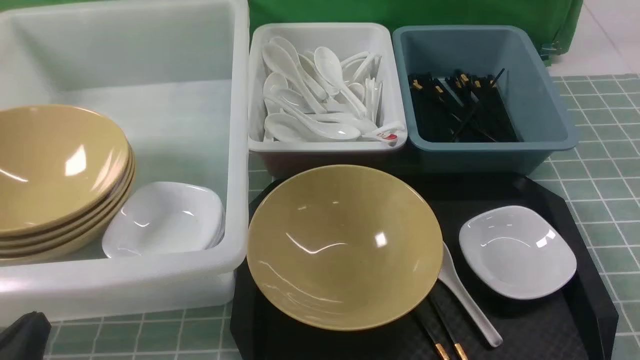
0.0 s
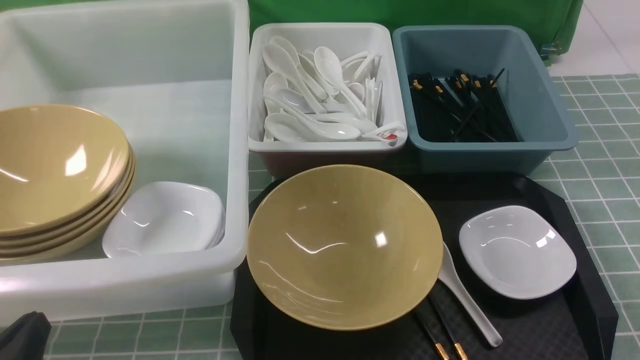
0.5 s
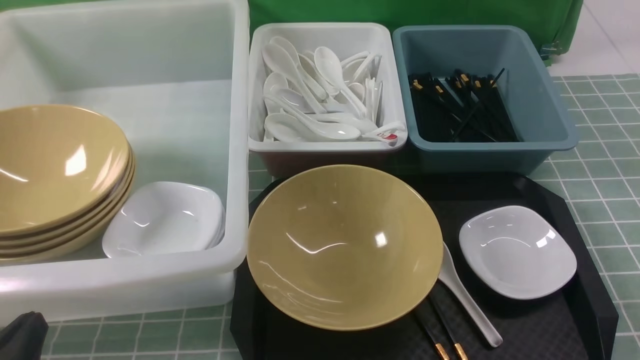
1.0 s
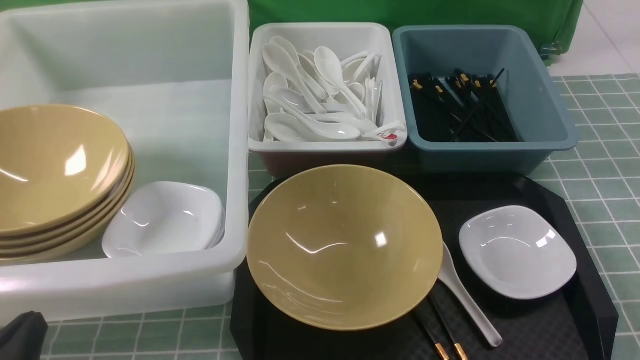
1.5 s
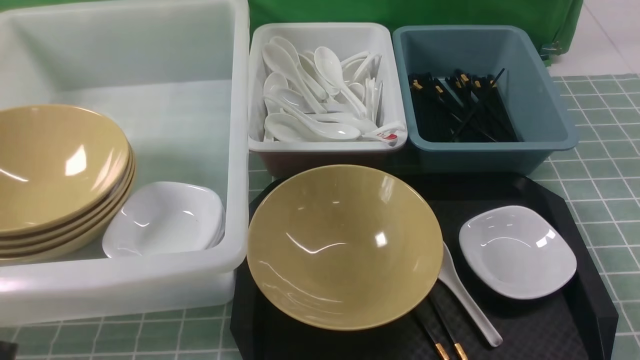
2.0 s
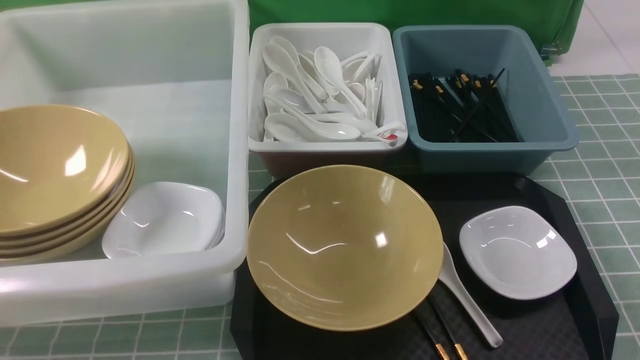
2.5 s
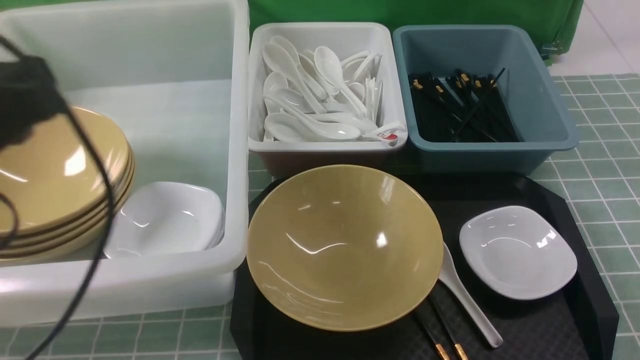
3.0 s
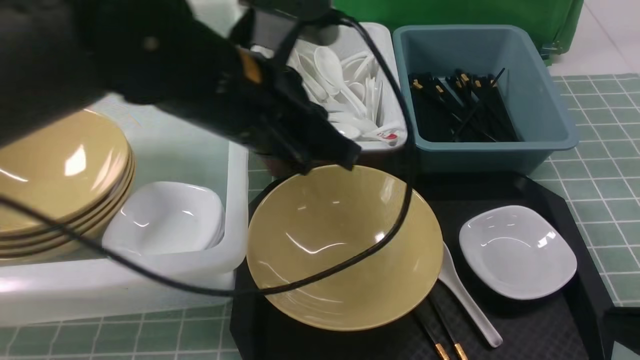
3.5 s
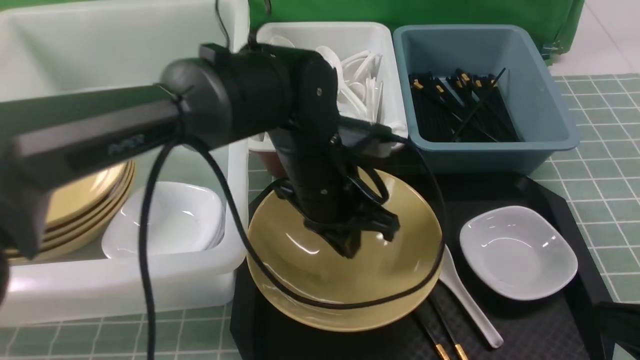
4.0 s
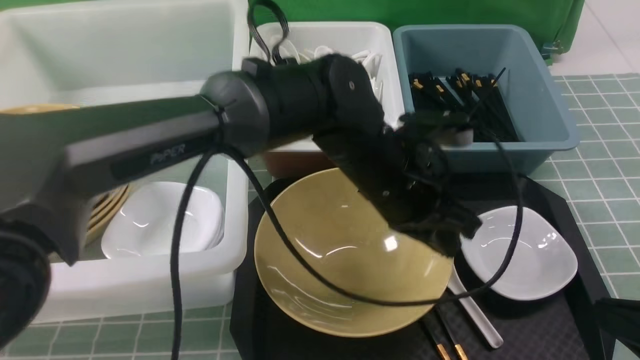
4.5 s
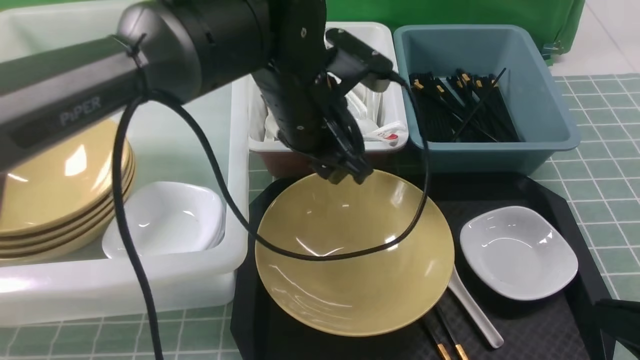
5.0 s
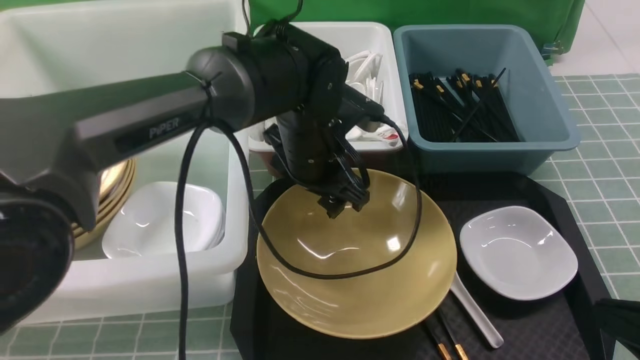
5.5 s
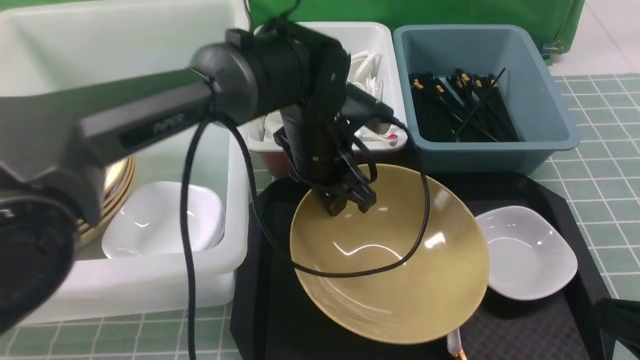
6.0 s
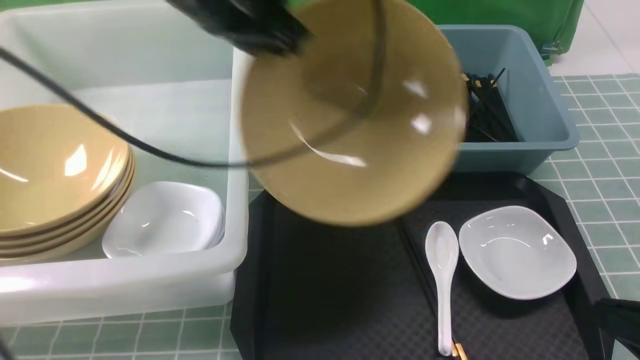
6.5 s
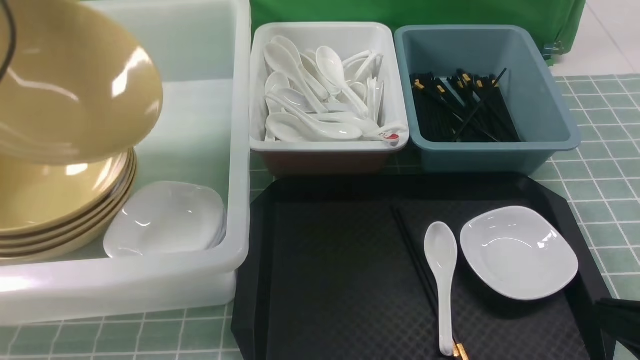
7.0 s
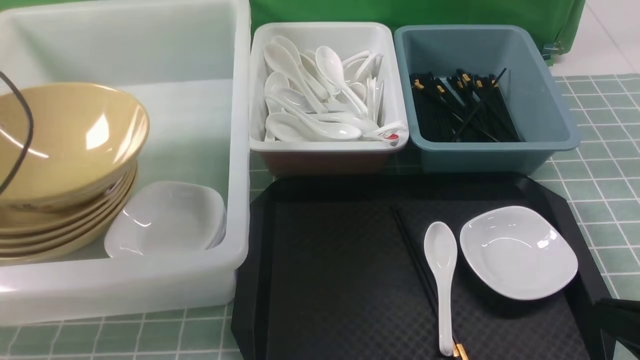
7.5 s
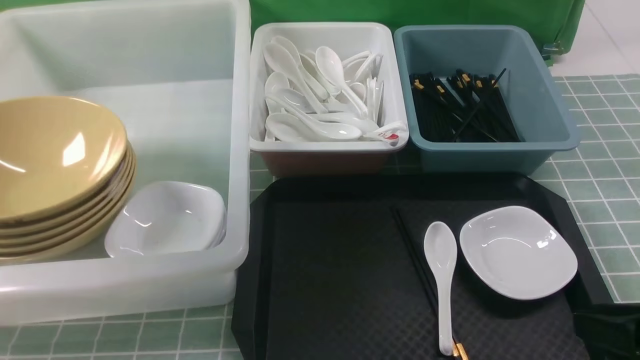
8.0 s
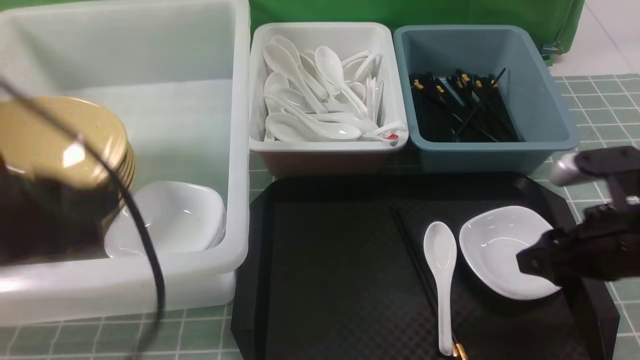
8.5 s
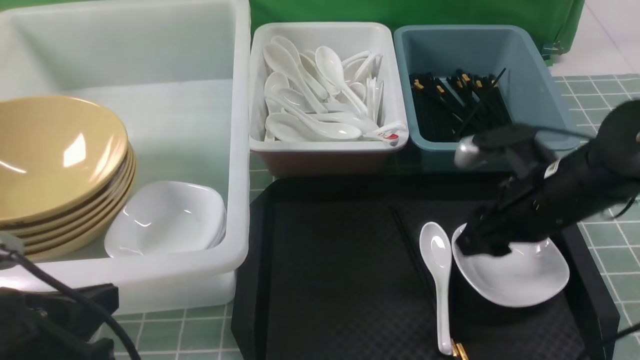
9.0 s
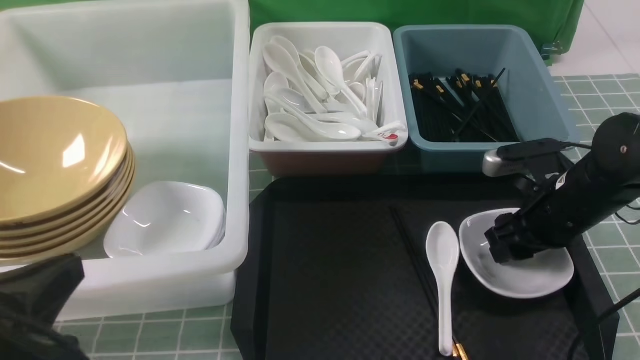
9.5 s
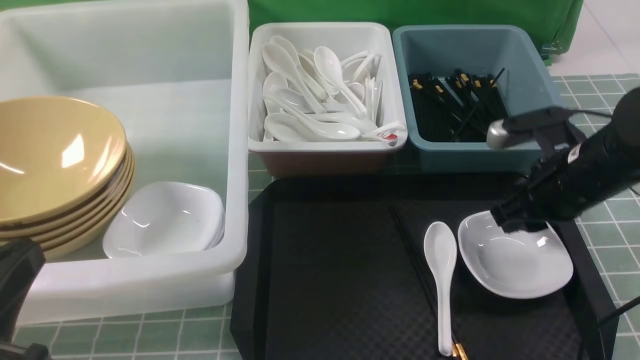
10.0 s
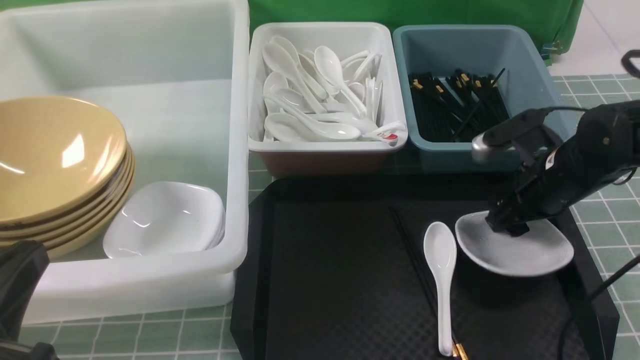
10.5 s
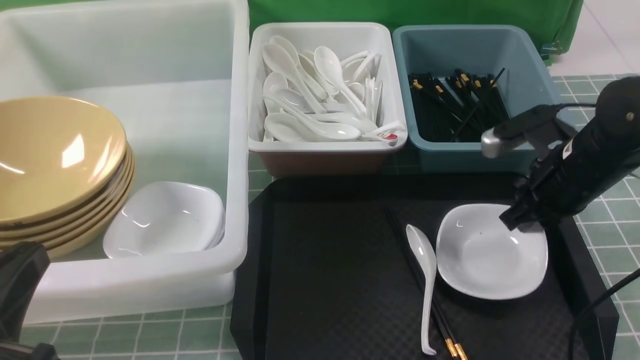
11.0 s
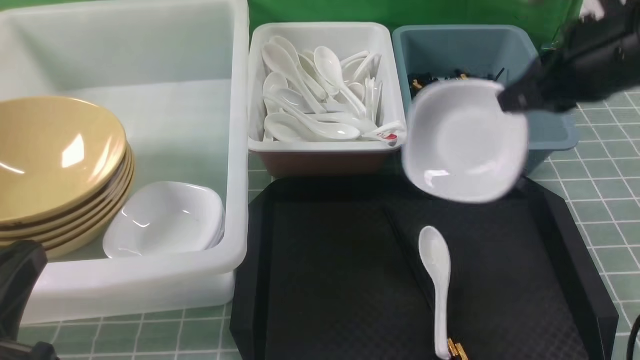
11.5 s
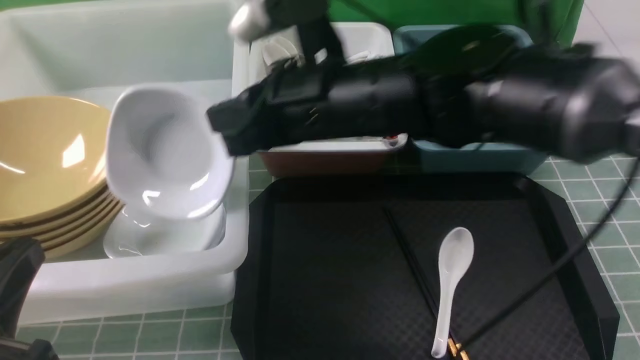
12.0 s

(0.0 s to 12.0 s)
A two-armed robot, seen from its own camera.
Task of the whole recording: on blue table put chopsticks spoon bowls plates into blue grey white boxes.
Step, 0.0 s - 6.0 s: use the left arm to grab the yellow noodle bowl on the left.
Step, 6.5 s - 7.5 s: use the left arm to put the noodle bowl into the large storage box on the left.
Step, 8.0 s - 11.0 s: use the right arm to grab the plate.
0.0 s - 2.0 s: The left gripper is displaced upward by approximately 5 cm.
2.0 s - 4.0 s: The left gripper goes some 35 cm to the right and forward. The right gripper goes upward and returns, some 10 cm each way, and closes its fingers.
4.0 s - 6.0 s: The left gripper shifts by about 5 cm, and opens, then closes once more.
6.0 s - 8.0 s: The left gripper moves to the left, upward and backward, approximately 35 cm, and opens. The right gripper opens.
8.0 s - 10.0 s: The left gripper moves backward, downward and to the right, roughly 20 cm, and closes its fingers, while the right gripper is displaced forward by some 20 cm.
10.0 s - 12.0 s: The right gripper travels to the left and upward by about 25 cm, and closes up.

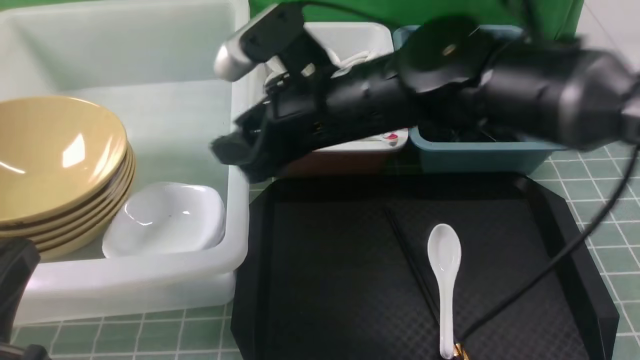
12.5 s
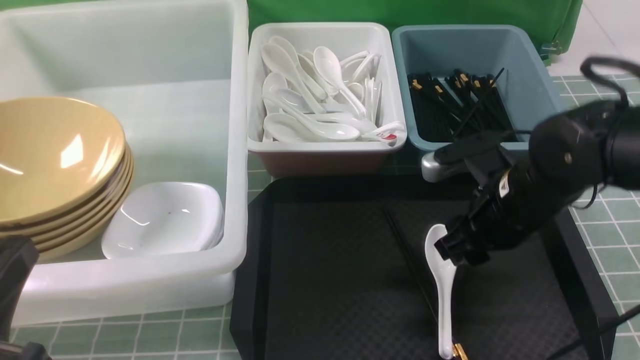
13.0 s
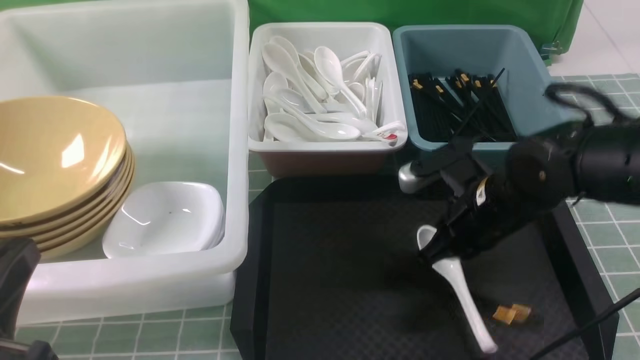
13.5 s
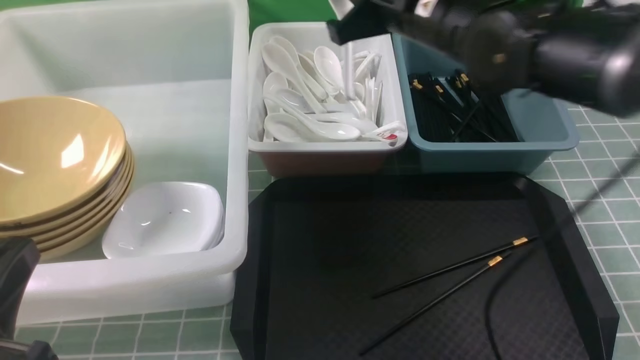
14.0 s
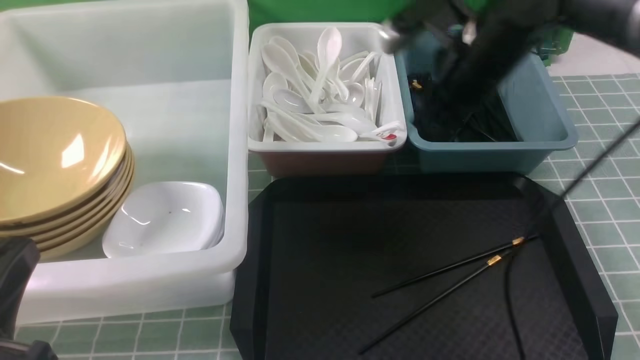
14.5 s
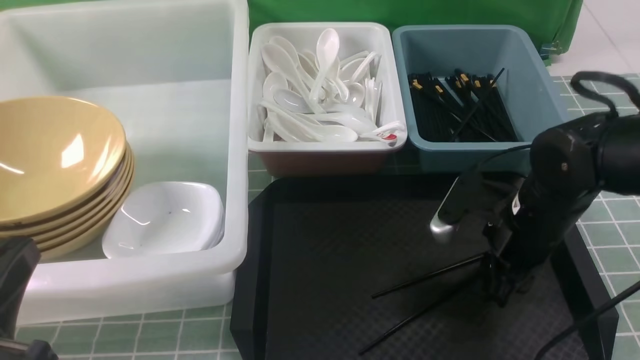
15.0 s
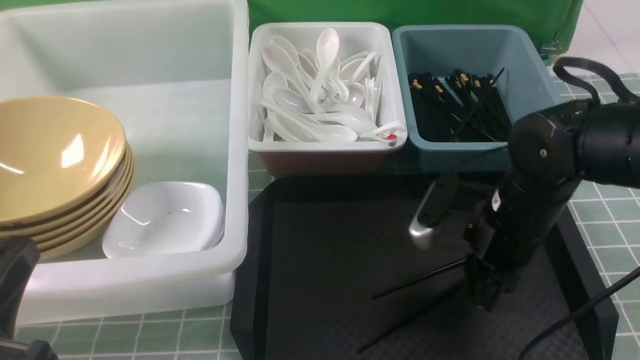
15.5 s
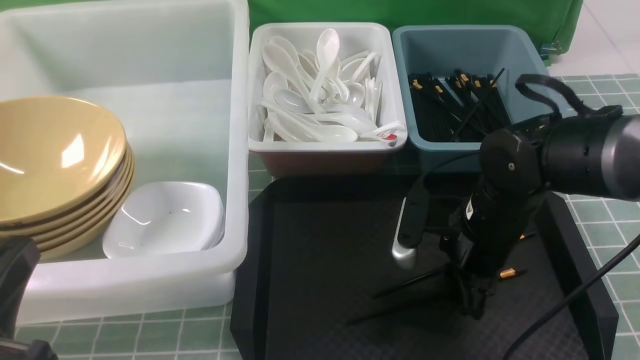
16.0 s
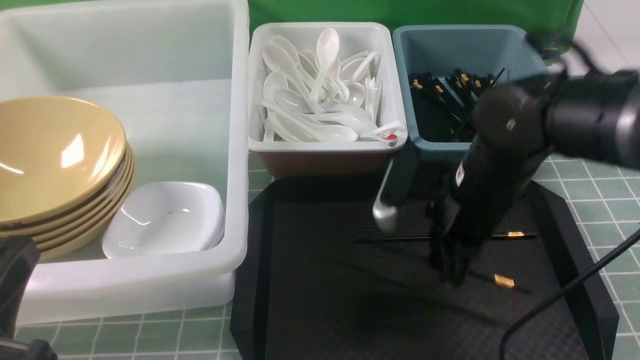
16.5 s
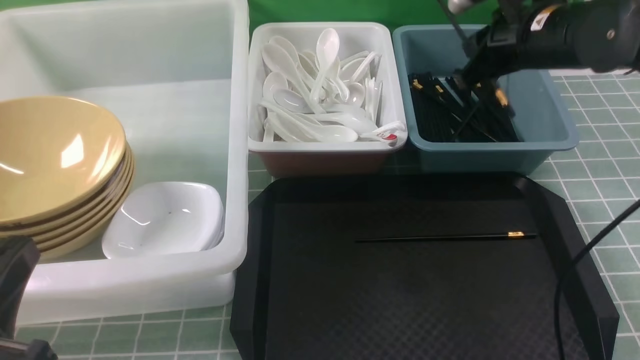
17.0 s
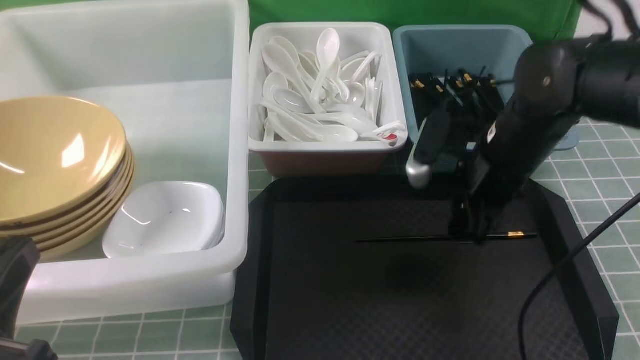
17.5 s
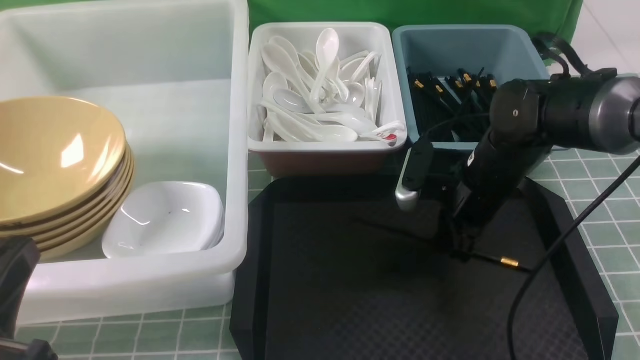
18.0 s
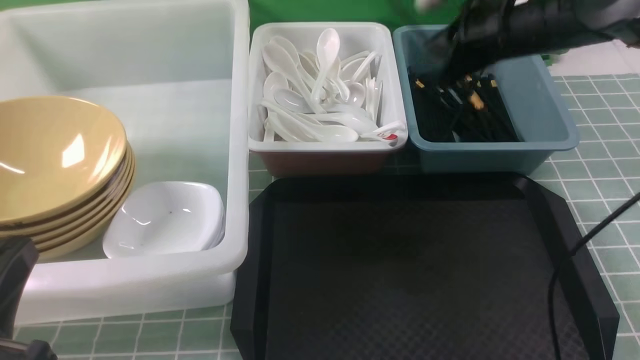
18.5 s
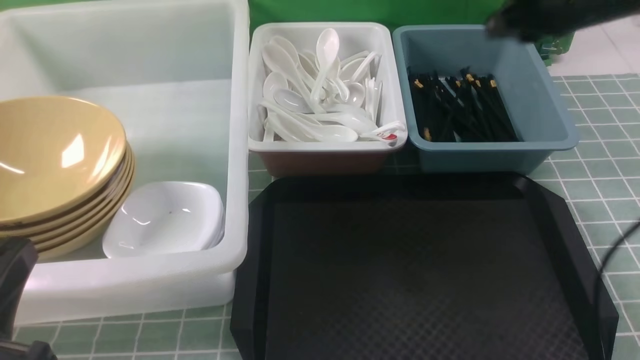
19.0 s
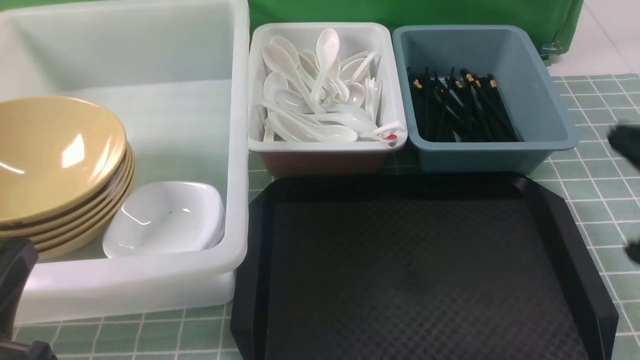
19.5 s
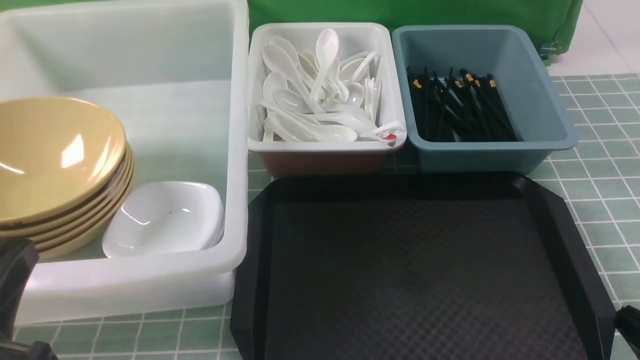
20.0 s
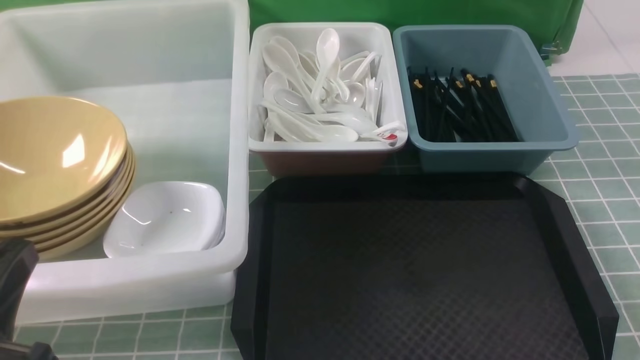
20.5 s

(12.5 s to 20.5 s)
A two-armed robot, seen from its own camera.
Task of the whole recording: on blue table put chopsticks spoon bowls plates into blue grey white boxes.
Step, 13.0 s - 13.5 s: use the right arm to grab the soup spoon in the middle.
Step, 14.5 s - 16.5 s: use the right arm to grab a chopstick.
Step, 17.5 s - 18.0 s: use the right arm to grab a chopstick.
Step, 18.5 s - 19.0 s: use the right arm to put a chopstick into the small storage box on the right.
12.5 s - 14.5 s: The right gripper moves left and right over roughly 15 cm, changing direction 2 times, and closes, then reopens.
14.5 s - 16.5 s: The right gripper moves backward, roughly 5 cm, and closes.
16.5 s - 18.5 s: The right gripper goes up and down, roughly 10 cm each way, reversing 2 times, and opens, then closes again.
18.5 s - 20.5 s: The right gripper is displaced backward by approximately 35 cm.
